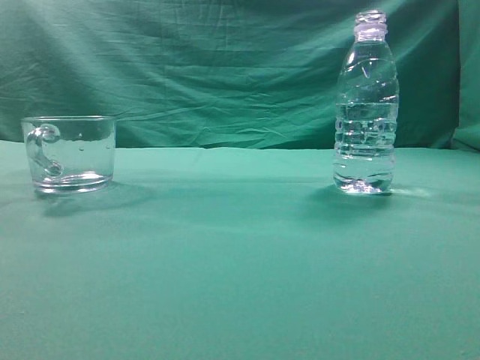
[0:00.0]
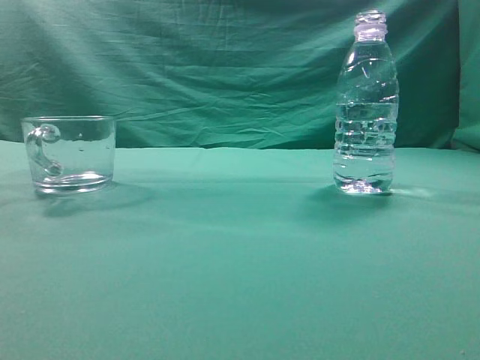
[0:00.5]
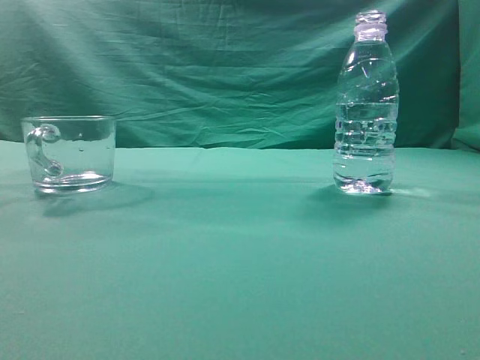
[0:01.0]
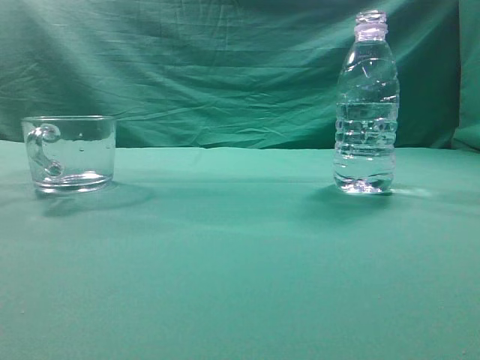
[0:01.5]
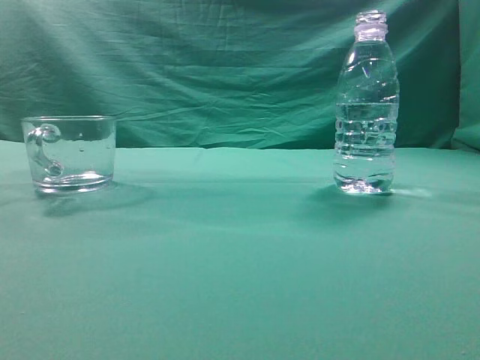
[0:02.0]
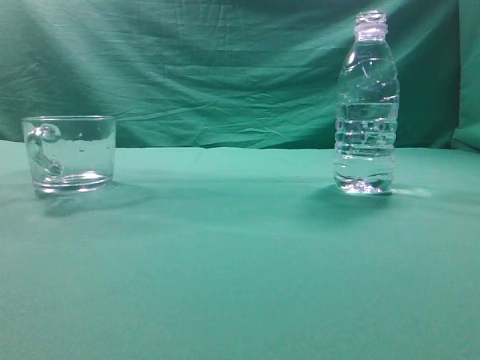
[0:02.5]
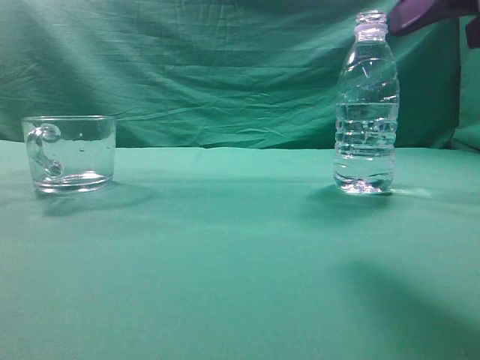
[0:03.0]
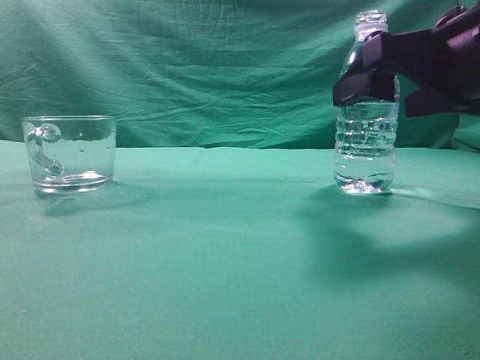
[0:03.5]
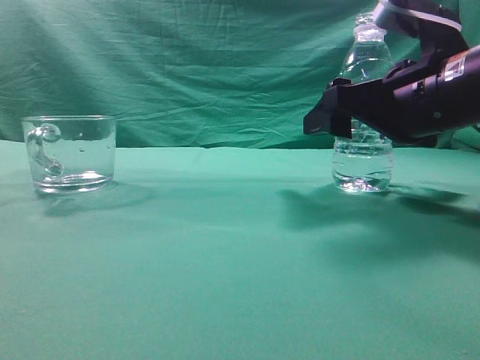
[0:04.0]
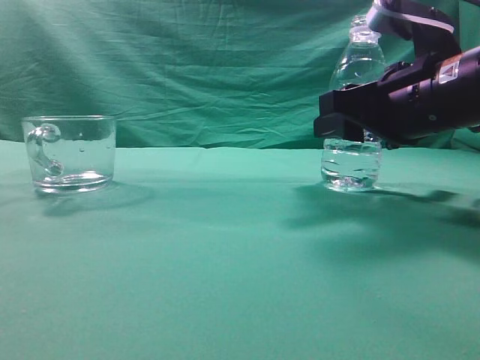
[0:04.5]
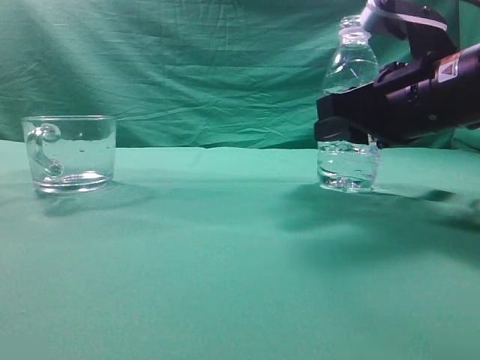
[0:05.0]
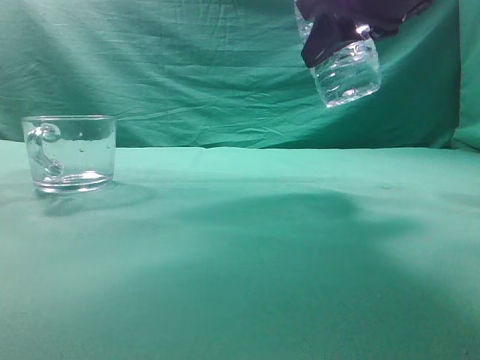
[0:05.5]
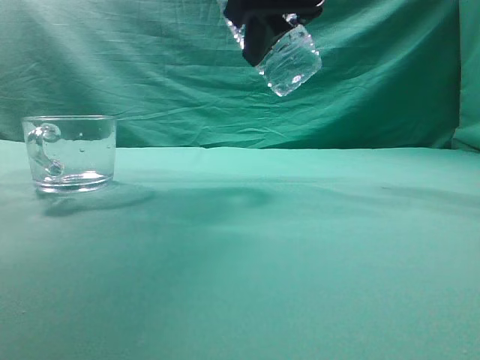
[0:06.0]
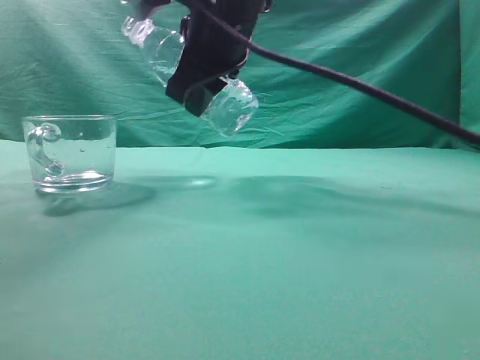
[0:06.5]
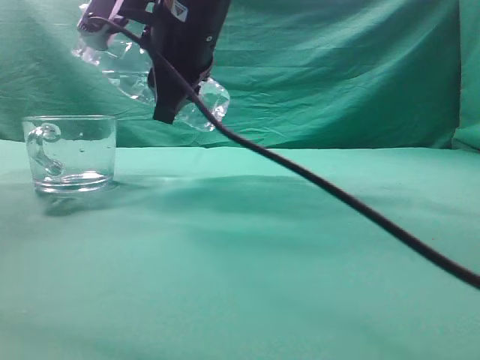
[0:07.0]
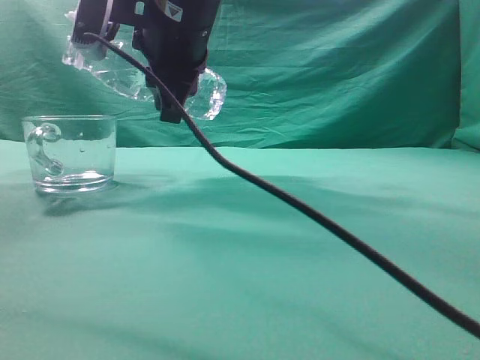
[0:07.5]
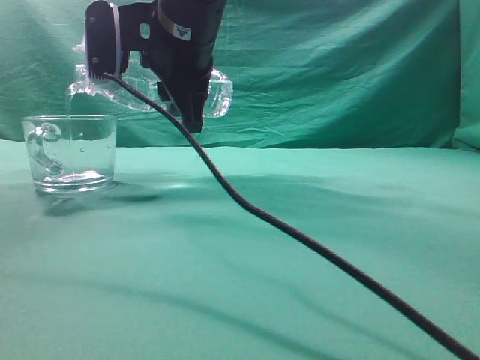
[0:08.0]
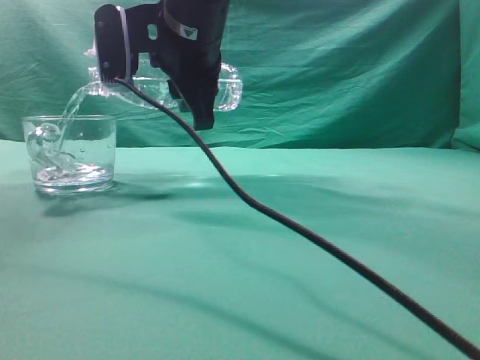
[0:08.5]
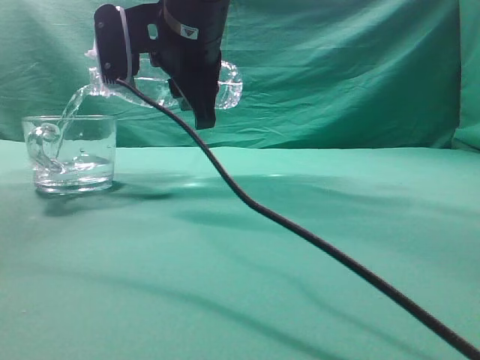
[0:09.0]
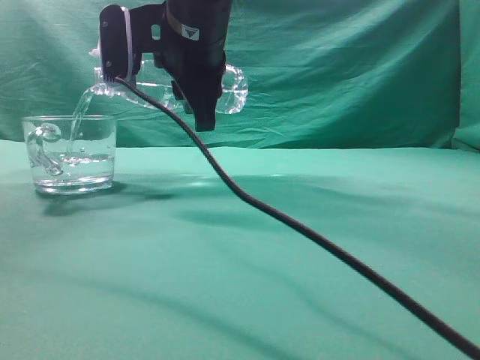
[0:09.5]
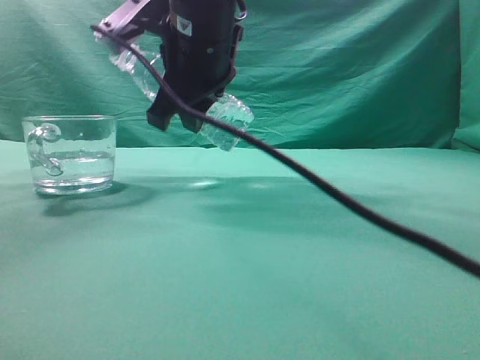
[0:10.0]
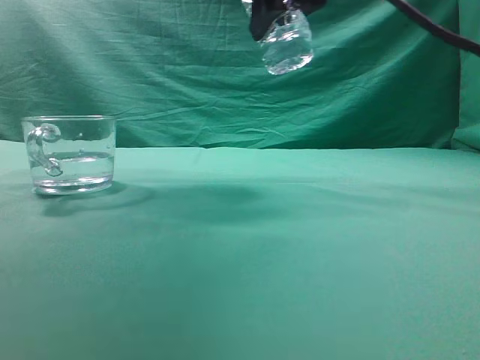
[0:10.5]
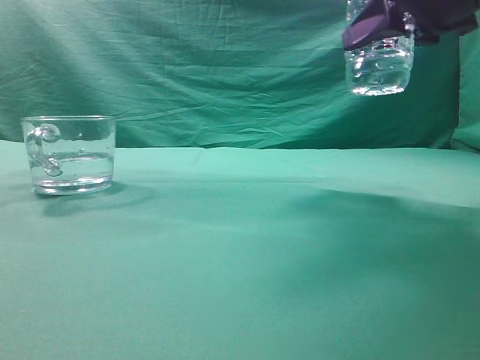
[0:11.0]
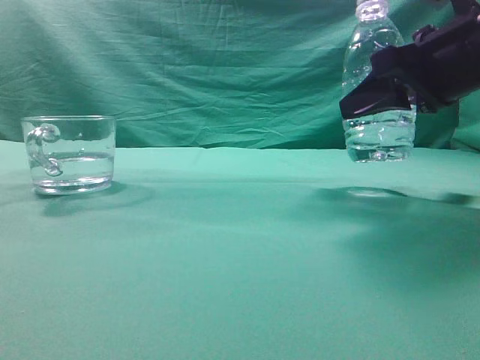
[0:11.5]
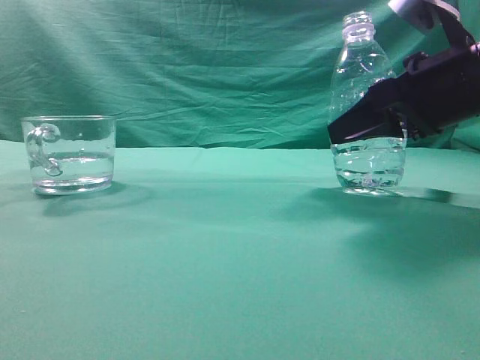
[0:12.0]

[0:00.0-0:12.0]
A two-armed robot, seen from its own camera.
Task of the whole recording: pick up the water bottle and pour the water in it into the glass.
Step, 0:00.0 to 0:05.0: Grasp the mineral water bottle.
Step, 0:05.5 to 0:10.0: Pour water into the teacup.
0:02.0 to 0:04.0: The right gripper travels forward, downward and to the left by some 30 cm, and opens its fingers.
0:04.0 to 0:06.0: The right gripper shifts approximately 20 cm upward and to the left, and closes its fingers.
0:06.0 to 0:08.0: The right gripper travels to the left and downward by roughly 10 cm.
0:10.0 to 0:12.0: The right gripper shifts roughly 25 cm to the right.

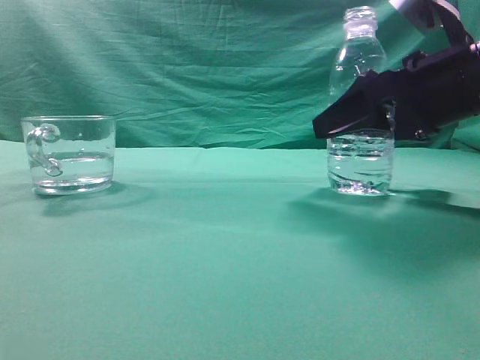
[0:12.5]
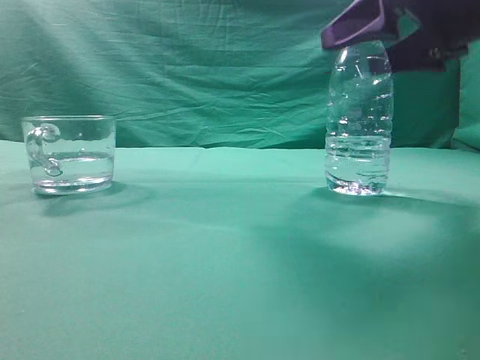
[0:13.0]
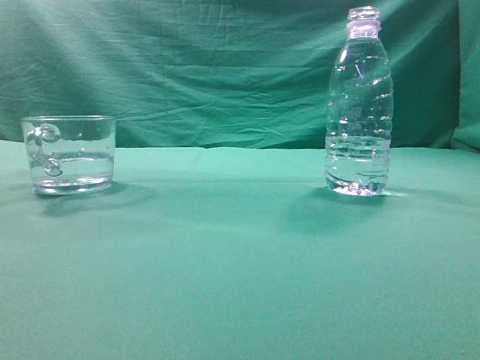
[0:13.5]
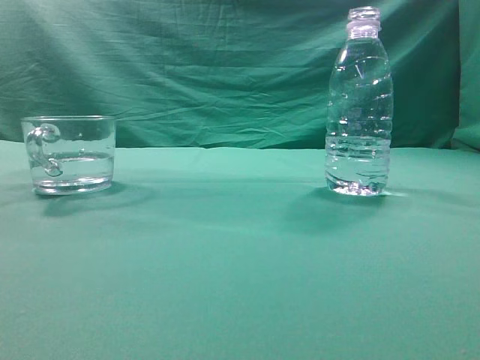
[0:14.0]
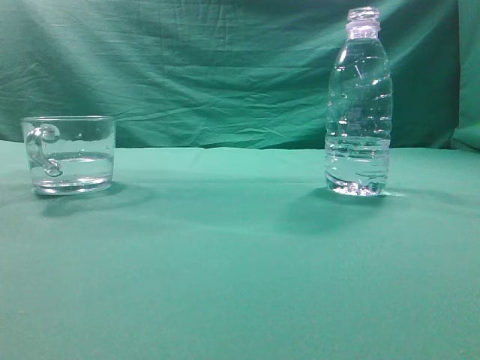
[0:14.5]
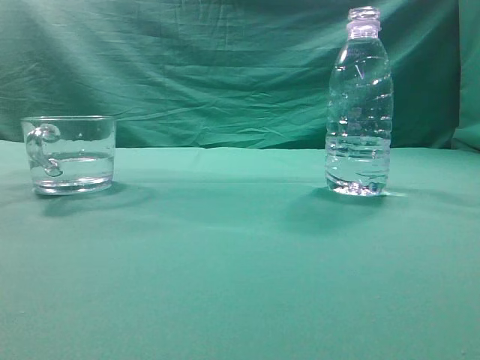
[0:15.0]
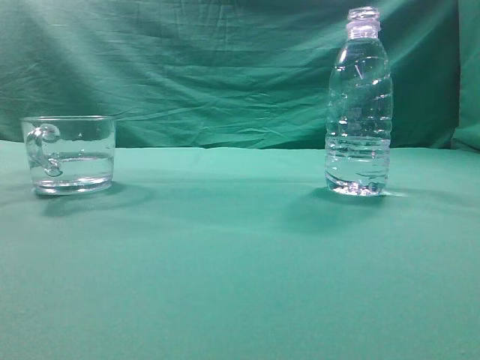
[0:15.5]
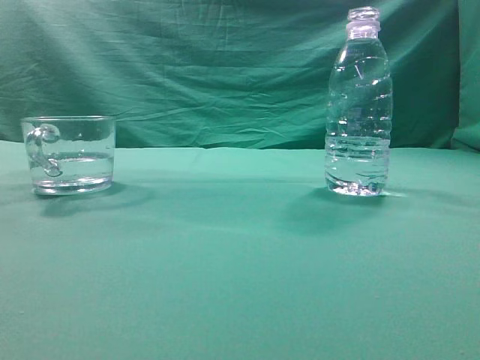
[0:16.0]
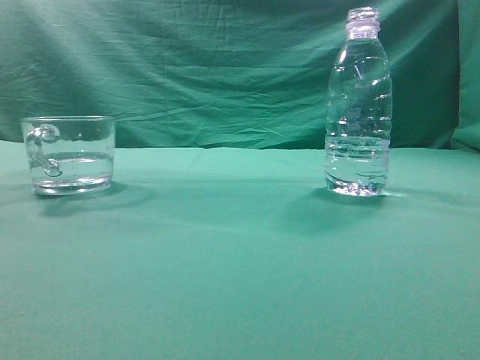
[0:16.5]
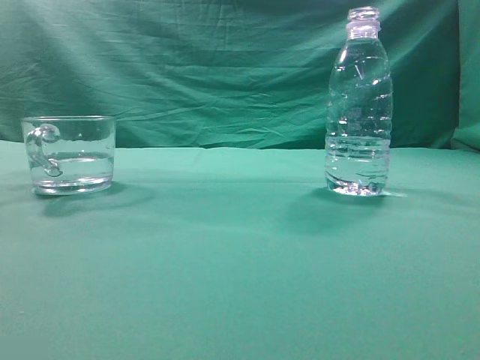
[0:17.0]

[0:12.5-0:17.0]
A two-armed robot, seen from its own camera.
Task of the whole recording: pick up the water bottle and pour the water in it into the glass.
0:12.5 to 0:14.5: The right gripper is displaced upward and backward by about 35 cm, and closes.
